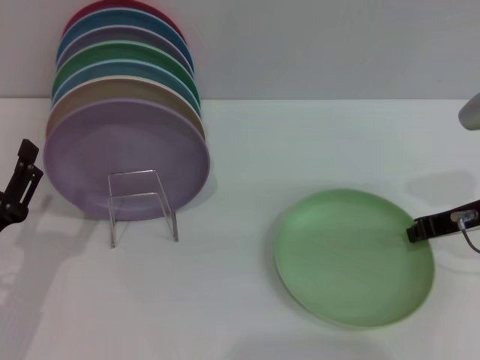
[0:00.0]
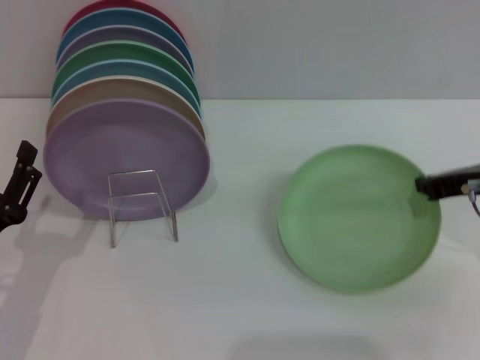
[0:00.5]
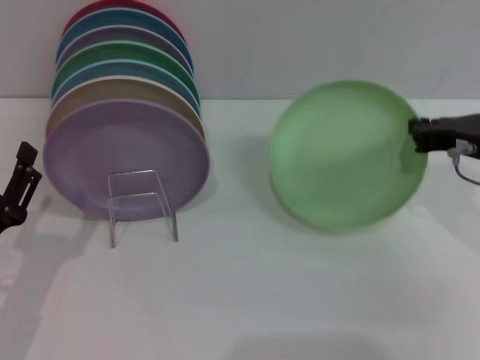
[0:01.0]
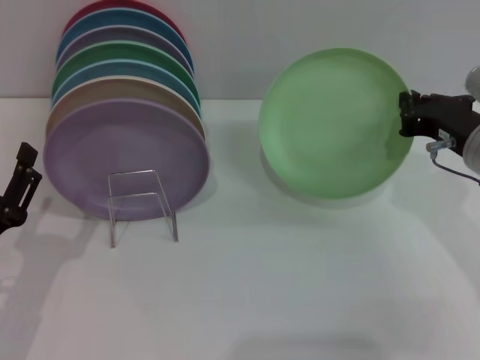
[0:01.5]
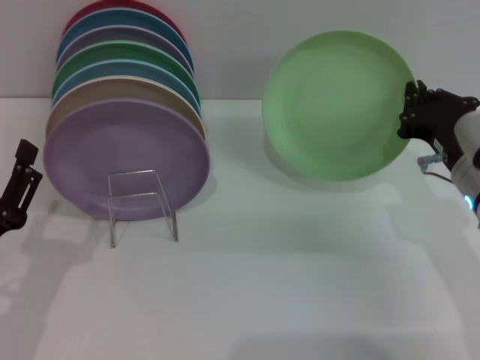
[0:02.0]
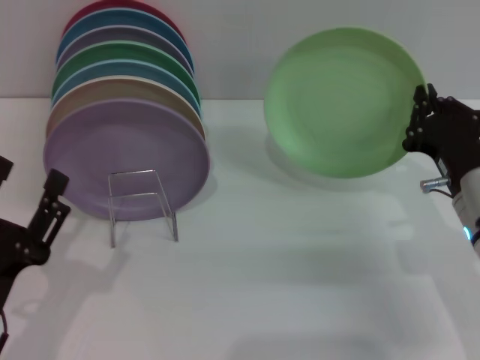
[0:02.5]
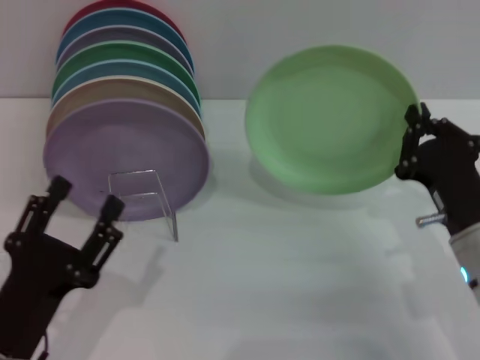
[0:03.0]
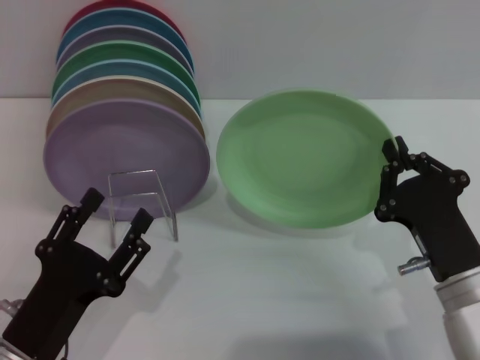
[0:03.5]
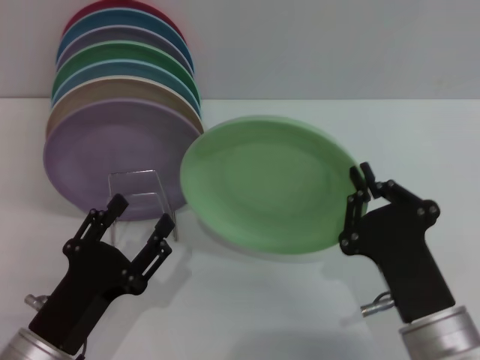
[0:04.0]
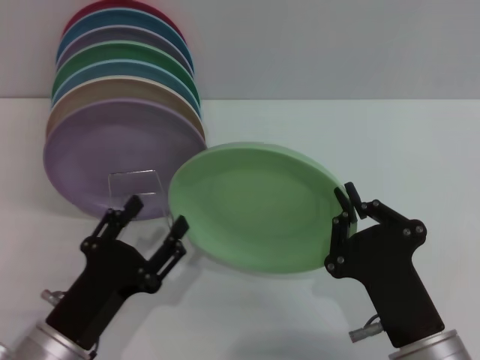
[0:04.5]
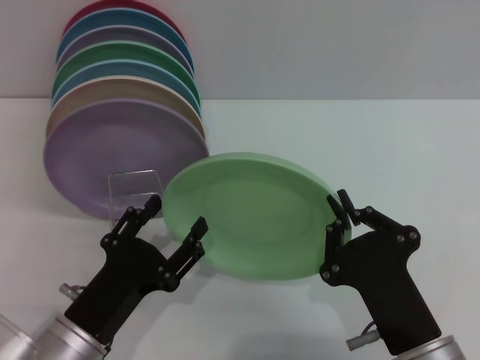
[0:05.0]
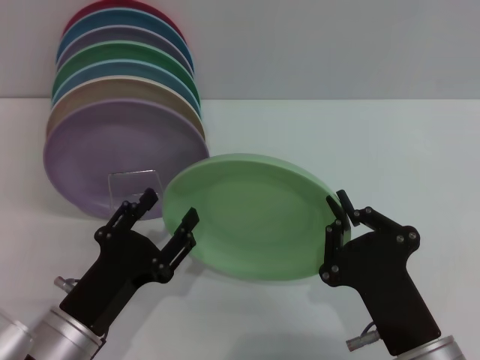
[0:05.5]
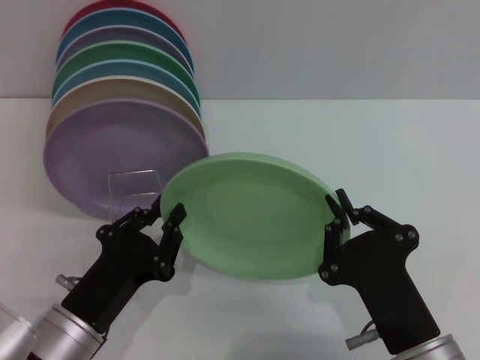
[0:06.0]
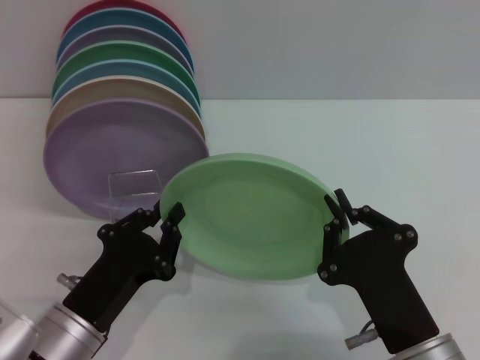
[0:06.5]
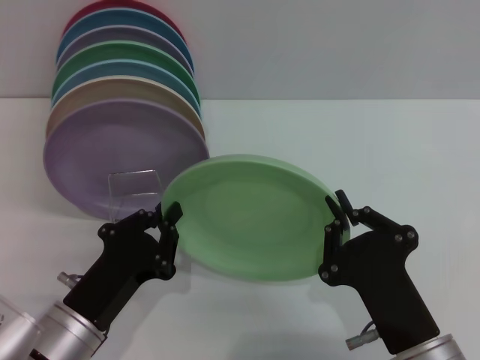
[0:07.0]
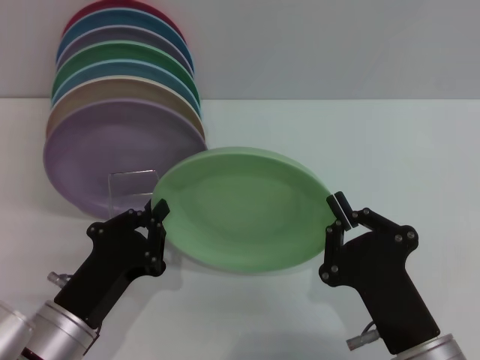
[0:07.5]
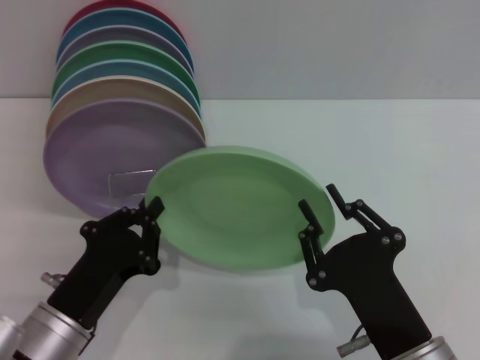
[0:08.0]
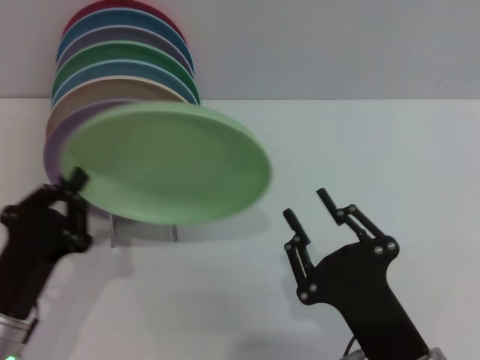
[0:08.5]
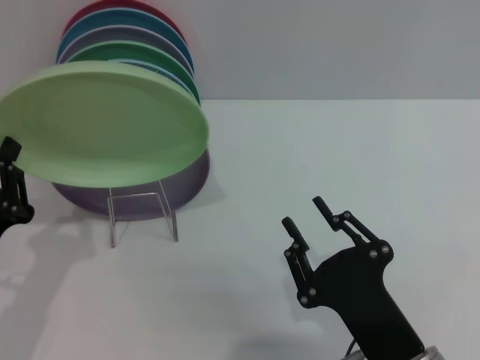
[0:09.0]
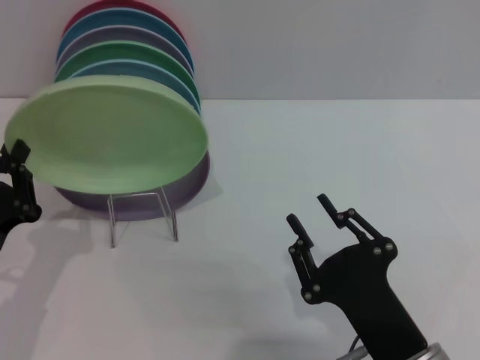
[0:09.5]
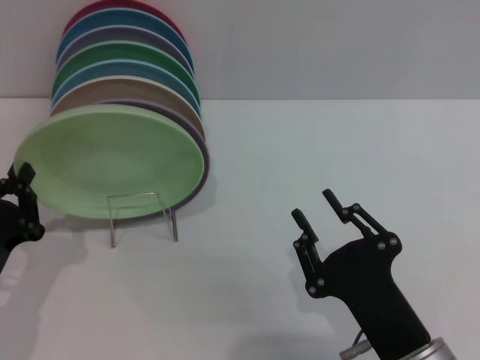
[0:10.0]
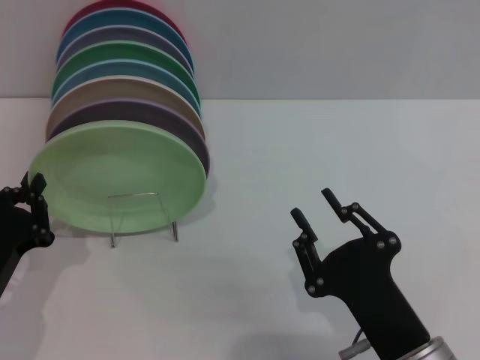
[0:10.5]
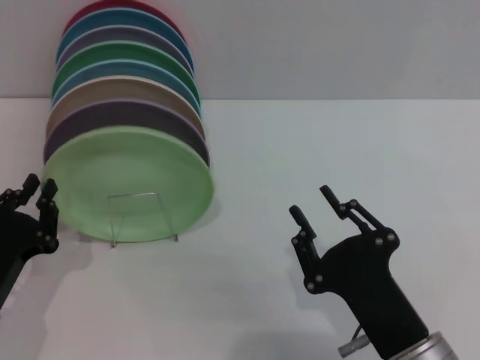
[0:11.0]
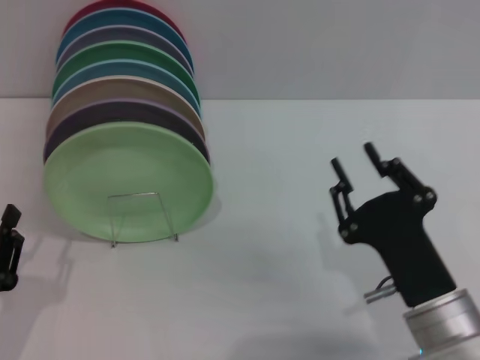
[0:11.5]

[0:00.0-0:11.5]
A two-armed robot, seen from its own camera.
Task of the whole recording: Grip the plate with one hand, pass it to the other, then set it on the shelf.
Step, 0:01.5 to 0:08.0: Pass the plate from the right gripper to the left gripper.
Step, 0:08.5 to 0:11.0: Place the plate on the shelf with the left gripper.
0:00.0 to 0:02.0: The right gripper moves roughly 5 cm.
0:02.0 to 0:04.0: The left gripper shifts approximately 5 cm to the right; the right gripper is displaced backward and to the left by some 15 cm.
0:04.0 to 0:06.0: The left gripper closes up.
0:06.0 to 0:07.5: The left gripper closes.
0:07.5 to 0:09.5: The right gripper opens up. Meanwhile the left gripper is displaced to the left by roughly 10 cm.
0:09.5 to 0:11.5: The left gripper goes approximately 5 cm backward, and opens up.
